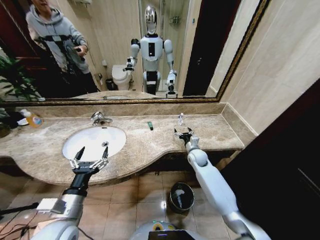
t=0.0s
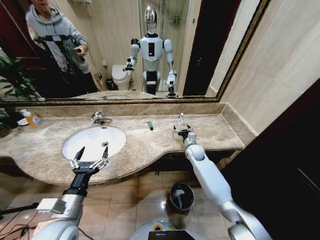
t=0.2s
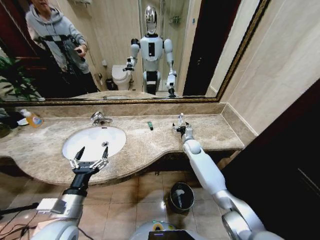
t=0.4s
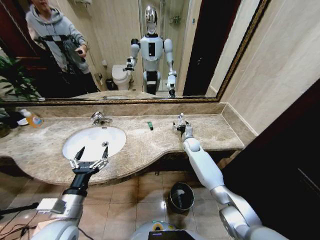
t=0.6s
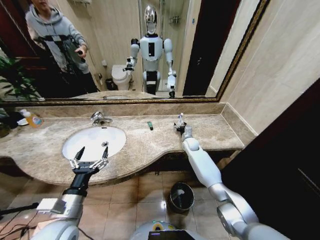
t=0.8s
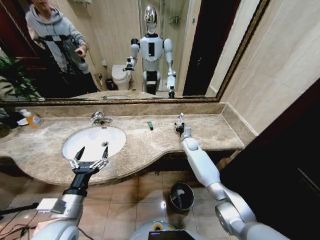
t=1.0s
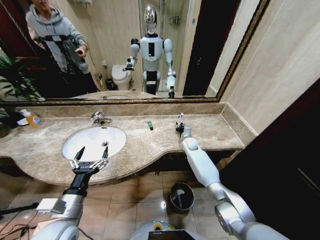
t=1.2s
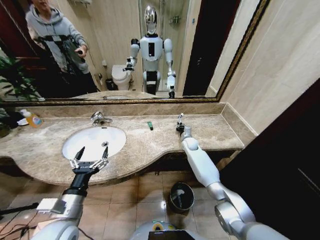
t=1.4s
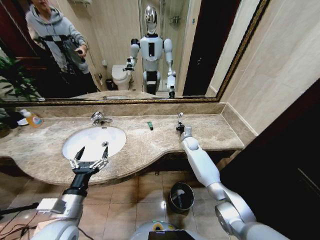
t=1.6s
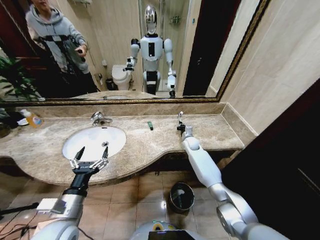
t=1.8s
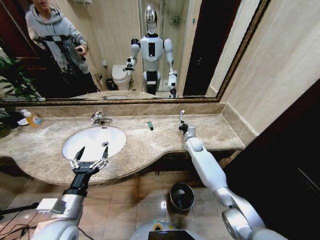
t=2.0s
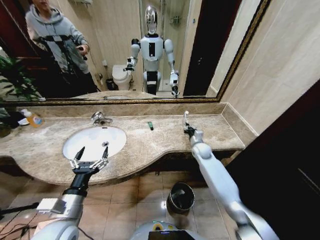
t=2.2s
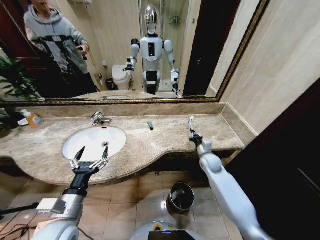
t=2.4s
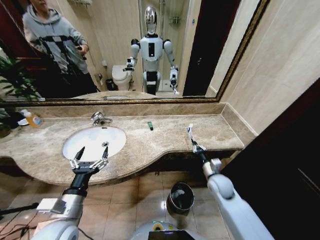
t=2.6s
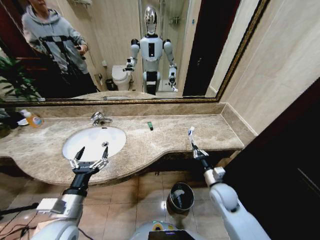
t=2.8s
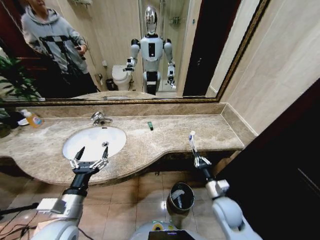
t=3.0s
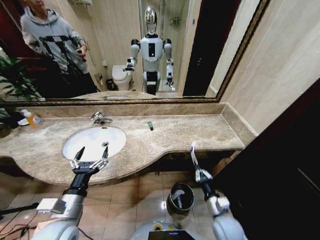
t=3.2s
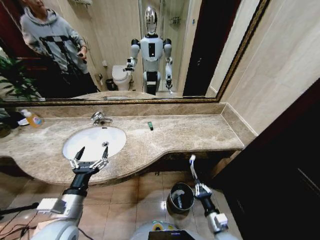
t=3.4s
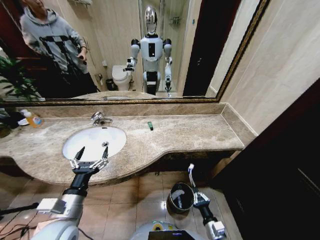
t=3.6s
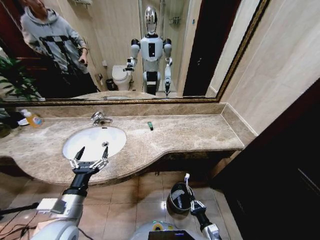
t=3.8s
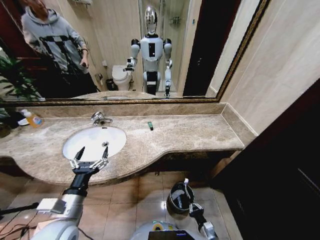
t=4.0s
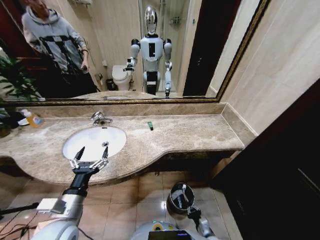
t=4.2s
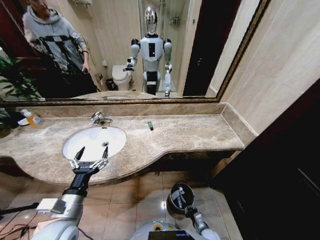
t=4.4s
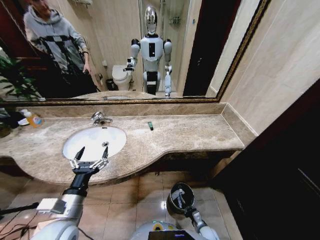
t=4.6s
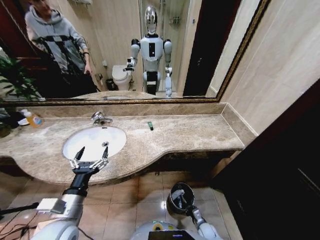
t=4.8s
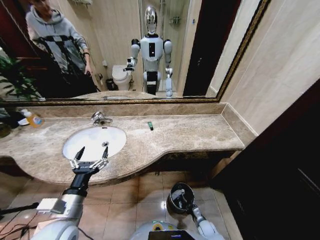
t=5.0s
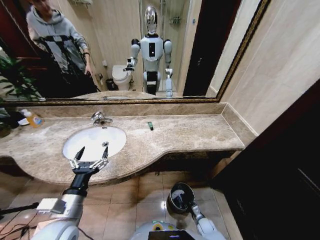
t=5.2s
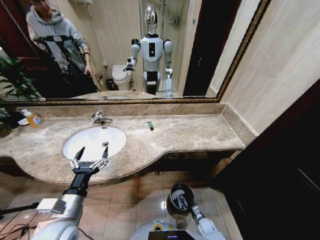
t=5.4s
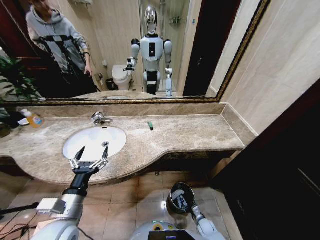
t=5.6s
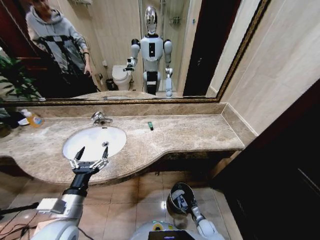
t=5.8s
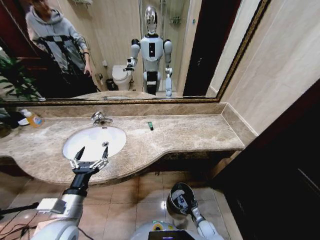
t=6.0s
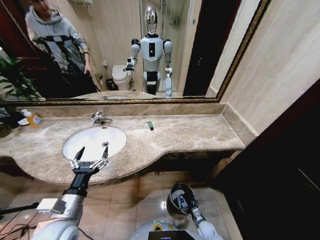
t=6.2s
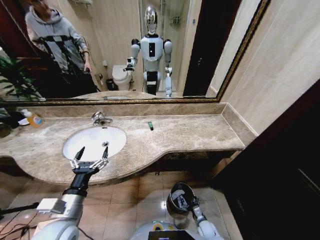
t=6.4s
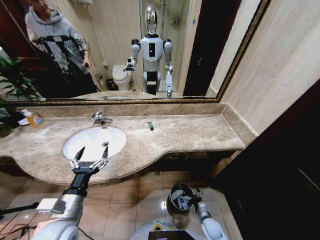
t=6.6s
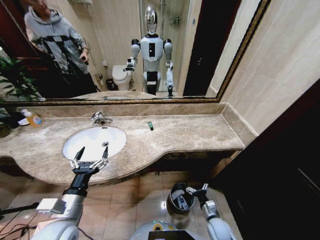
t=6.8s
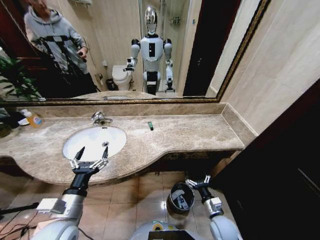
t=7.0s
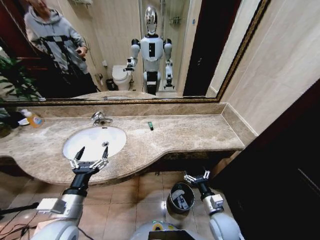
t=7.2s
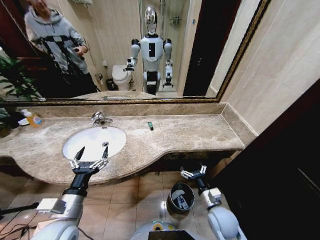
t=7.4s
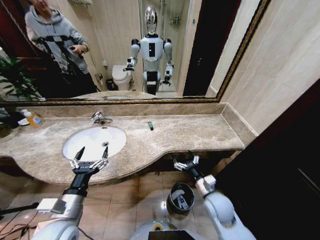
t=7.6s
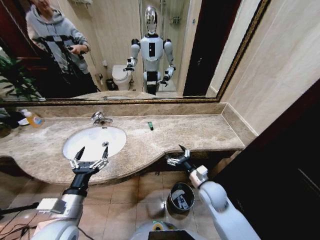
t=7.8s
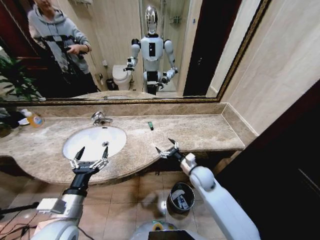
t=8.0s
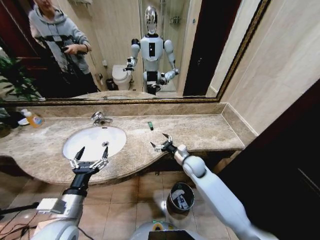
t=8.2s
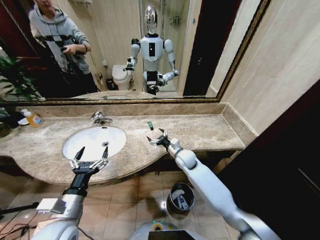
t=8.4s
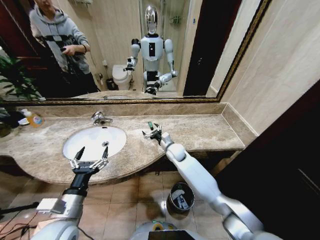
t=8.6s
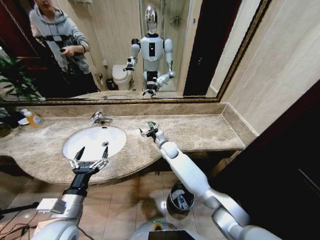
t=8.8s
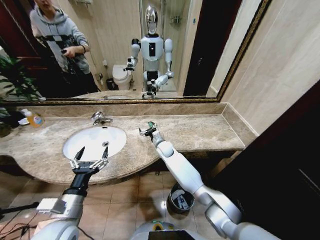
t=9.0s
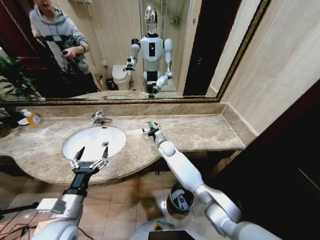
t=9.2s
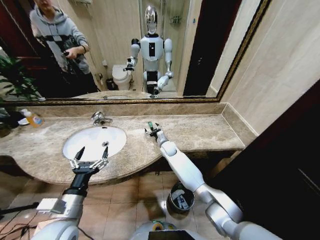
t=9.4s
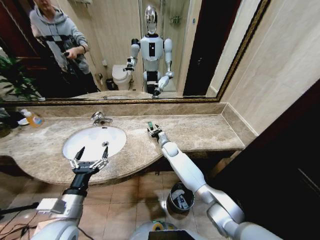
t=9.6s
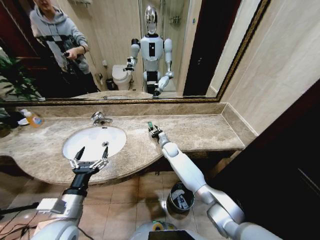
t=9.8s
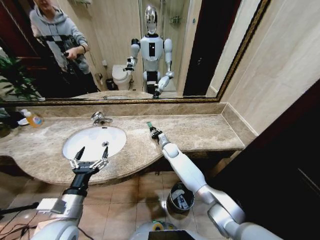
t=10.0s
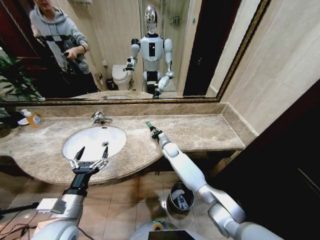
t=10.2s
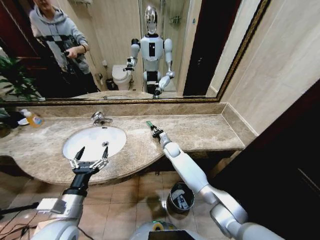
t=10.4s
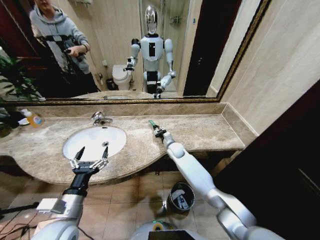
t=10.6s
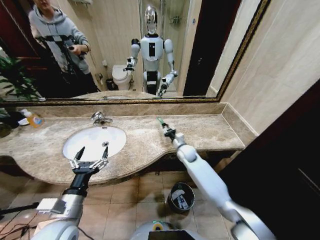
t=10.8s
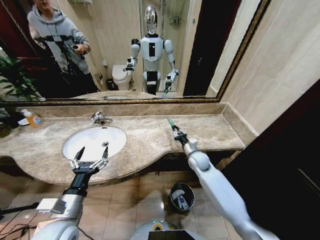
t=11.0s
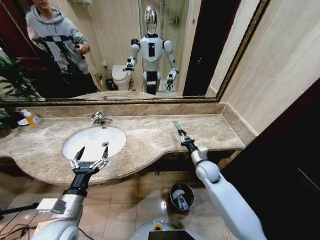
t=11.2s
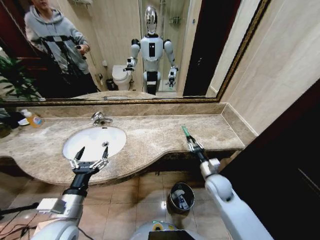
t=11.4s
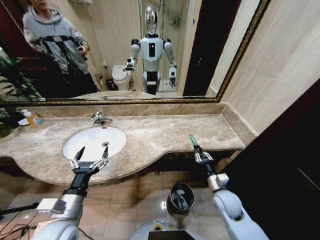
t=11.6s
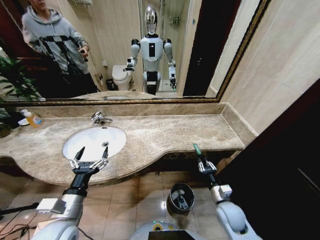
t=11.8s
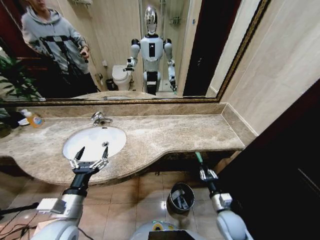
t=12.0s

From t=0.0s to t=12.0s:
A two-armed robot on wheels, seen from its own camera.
Task of the whole recording: Pick up the trash from the sink and place it in the trash bin.
From t=0.0s to t=1.6s: The right gripper goes roughly 10 cm forward, and closes up.
From t=1.6s to t=3.0s: The right gripper moves backward, roughly 35 cm.
From t=3.0s to t=4.4s: The right gripper travels downward by some 25 cm.
From t=4.4s to t=6.0s: The right gripper moves downward, approximately 5 cm, and opens up.
From t=6.0s to t=7.6s: The right gripper heads upward, covering roughly 35 cm.
From t=7.6s to t=9.0s: The right gripper shifts roughly 35 cm forward and to the left.
From t=9.0s to t=10.4s: The right gripper moves approximately 5 cm, and closes.
From t=10.4s to t=12.0s: The right gripper is displaced backward and to the right by approximately 40 cm.

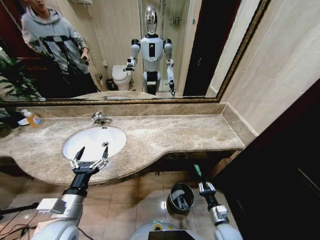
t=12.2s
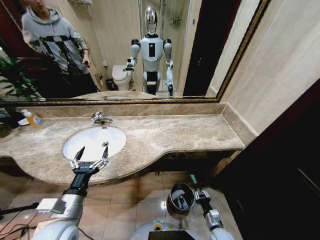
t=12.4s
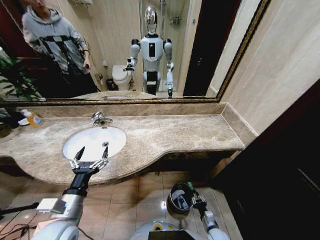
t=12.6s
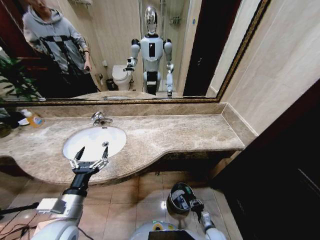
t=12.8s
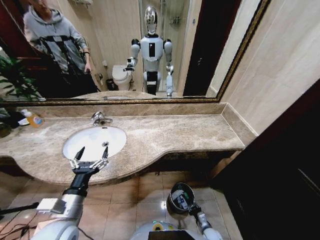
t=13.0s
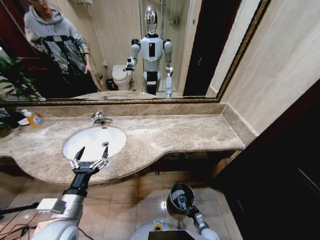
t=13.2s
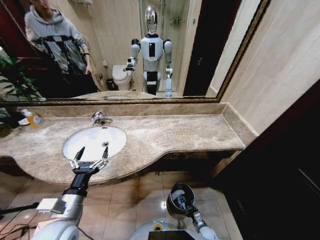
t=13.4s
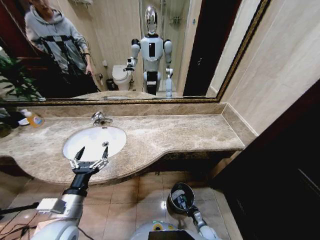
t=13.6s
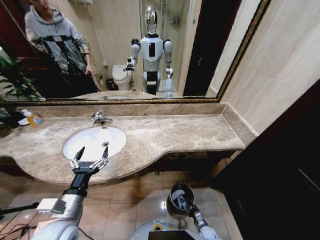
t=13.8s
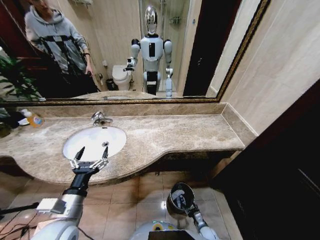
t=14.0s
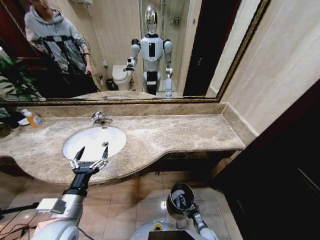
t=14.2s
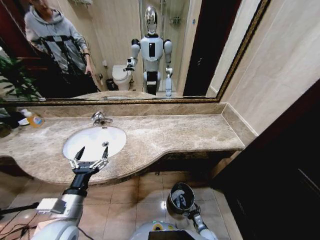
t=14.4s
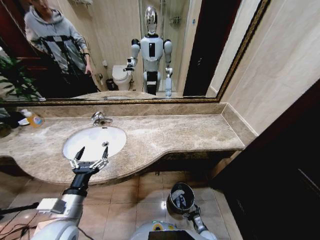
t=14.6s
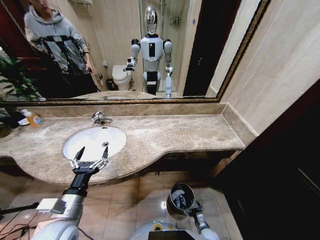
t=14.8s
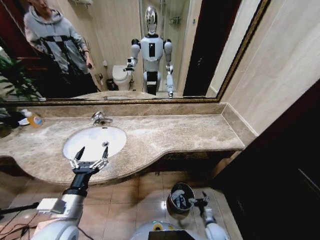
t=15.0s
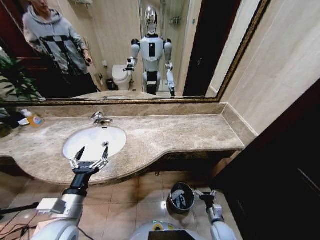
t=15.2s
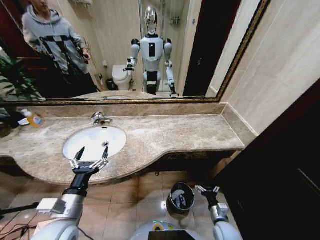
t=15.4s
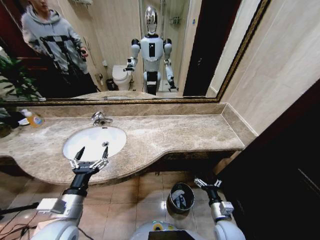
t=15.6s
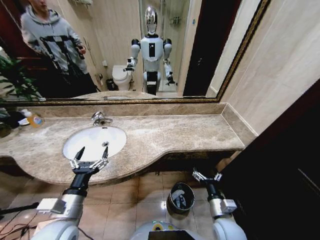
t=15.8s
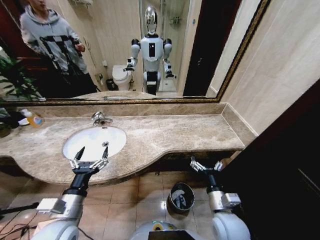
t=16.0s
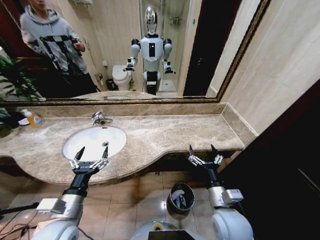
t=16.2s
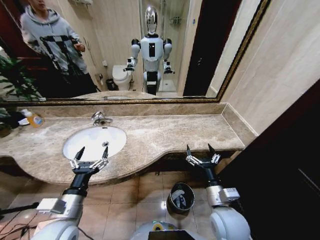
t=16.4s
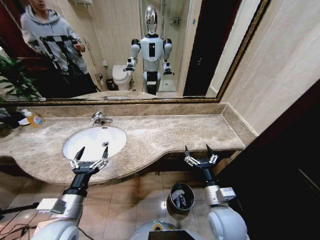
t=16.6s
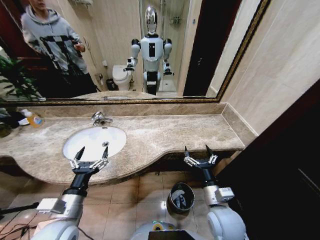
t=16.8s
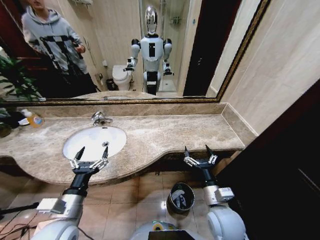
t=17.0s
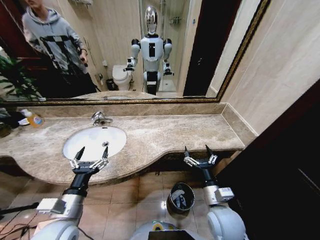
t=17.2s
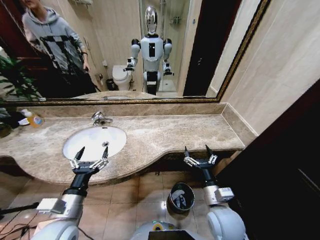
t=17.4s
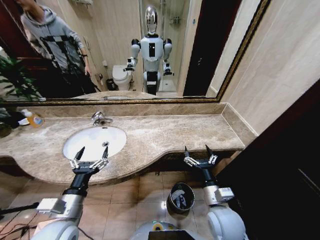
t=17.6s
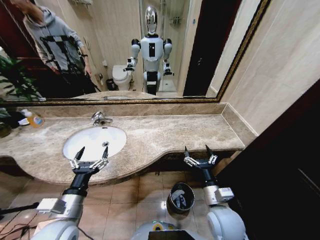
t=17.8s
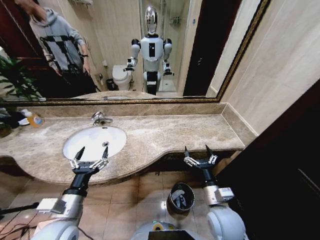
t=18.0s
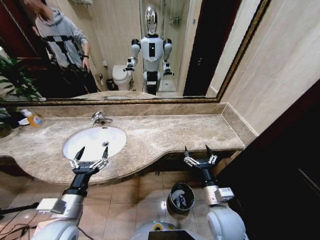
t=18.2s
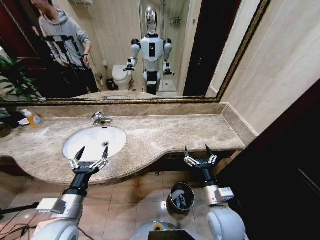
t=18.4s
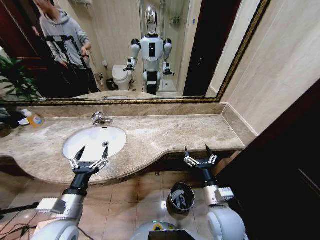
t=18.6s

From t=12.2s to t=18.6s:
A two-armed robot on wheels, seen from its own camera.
Task of the whole recording: Pick up the trash from the sink and place it in the trash bin.
From t=12.2s to t=13.8s: The right gripper moves downward, approximately 20 cm.
From t=13.8s to t=15.4s: The right gripper moves upward, some 20 cm, and opens up.
From t=15.4s to t=17.0s: The right gripper heads upward and to the left, covering about 25 cm.
From t=17.0s to t=18.6s: Both grippers stay put.

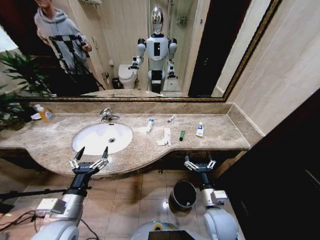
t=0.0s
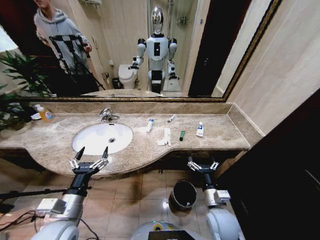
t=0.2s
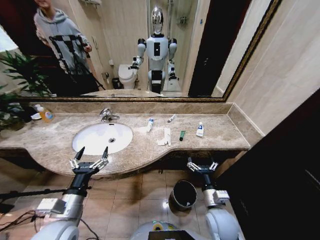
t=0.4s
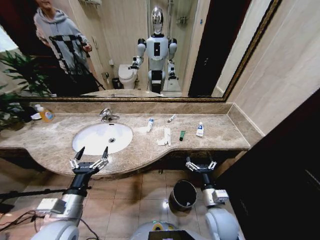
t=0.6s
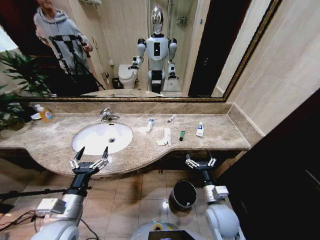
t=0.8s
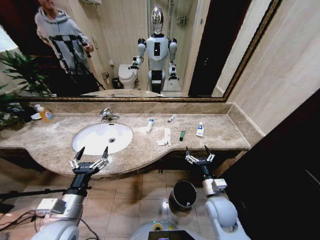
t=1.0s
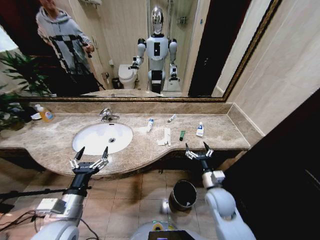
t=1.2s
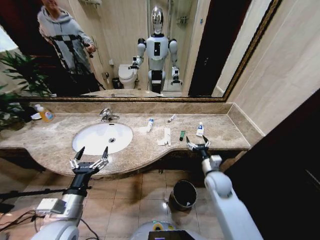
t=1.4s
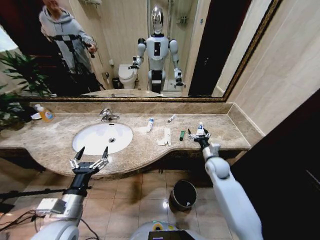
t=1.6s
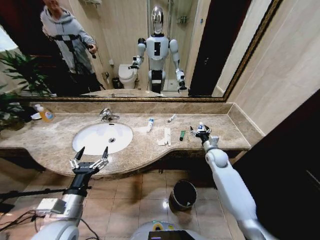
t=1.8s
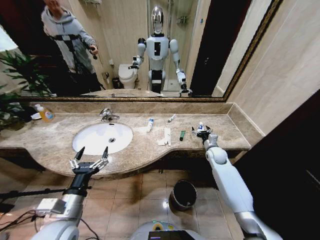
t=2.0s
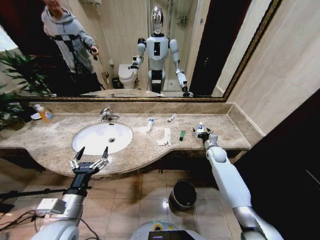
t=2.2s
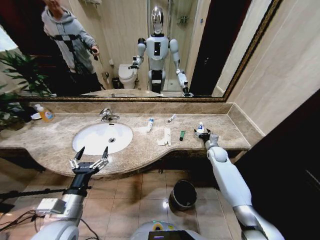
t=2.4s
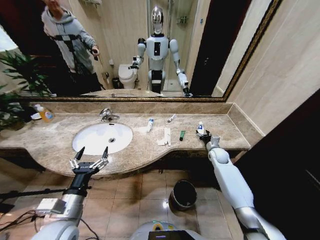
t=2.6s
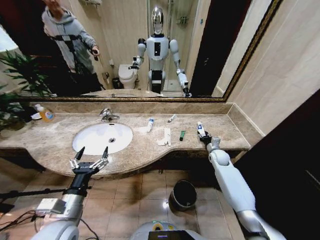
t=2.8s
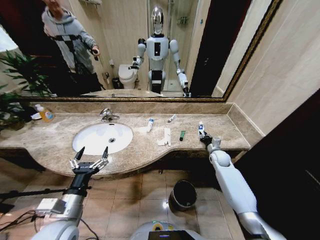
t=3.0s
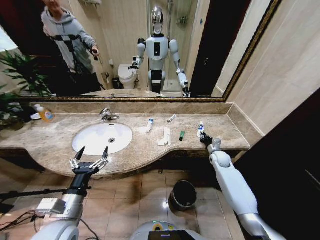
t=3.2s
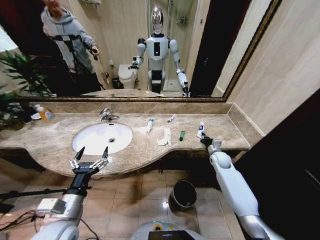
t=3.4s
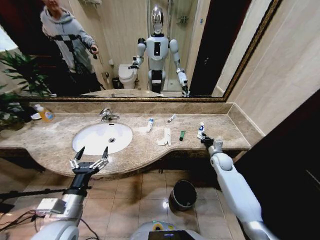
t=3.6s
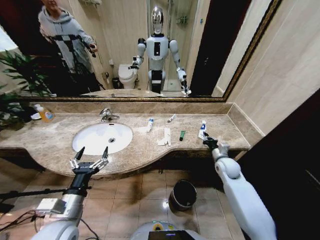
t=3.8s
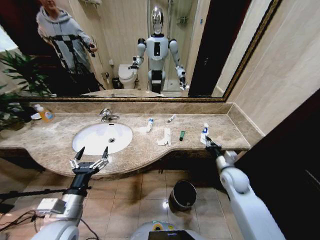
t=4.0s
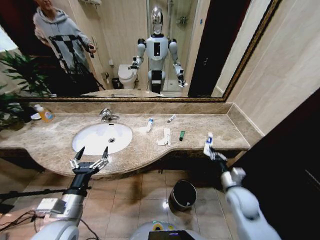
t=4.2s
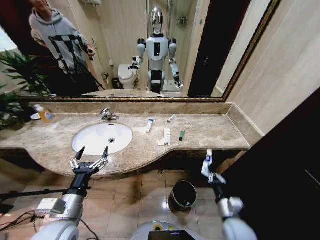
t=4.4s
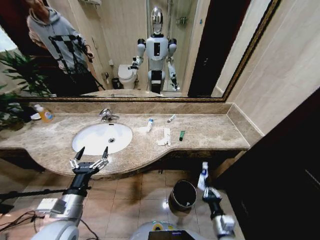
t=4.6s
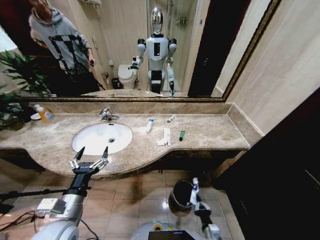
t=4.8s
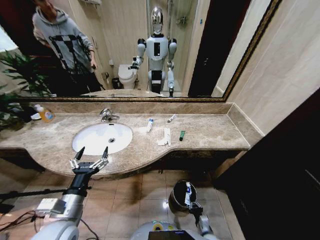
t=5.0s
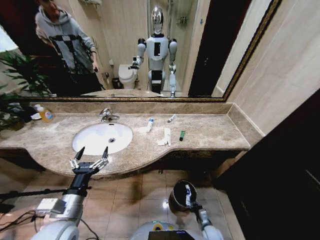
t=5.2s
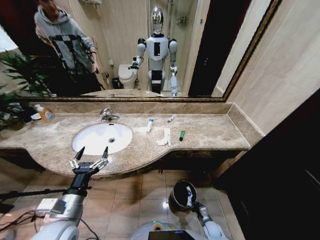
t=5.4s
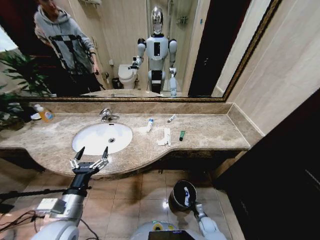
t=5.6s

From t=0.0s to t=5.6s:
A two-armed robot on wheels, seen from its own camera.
Task of the whole recording: Pick up the trash from the sink and place it in the trash bin.
From t=1.4s to t=2.8s: The right gripper is displaced forward and to the right by about 20 cm, and closes its fingers.
From t=2.8s to t=4.2s: The right gripper goes some 25 cm backward, and closes up.
From t=4.2s to t=5.6s: The right gripper travels downward by about 35 cm.
